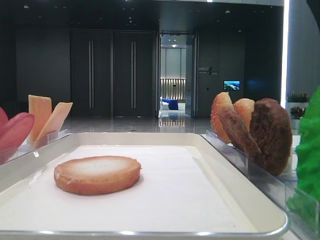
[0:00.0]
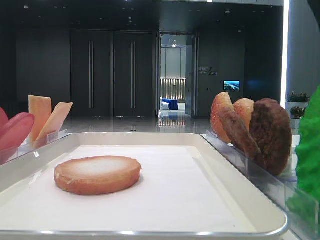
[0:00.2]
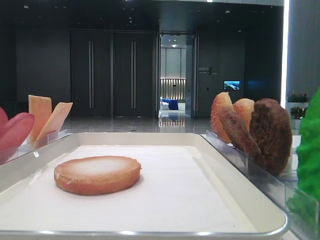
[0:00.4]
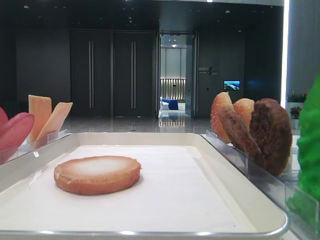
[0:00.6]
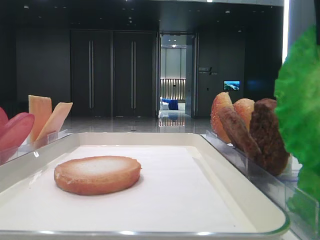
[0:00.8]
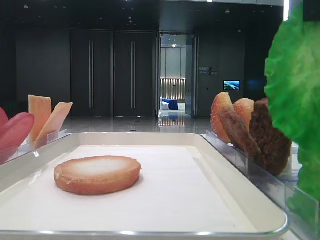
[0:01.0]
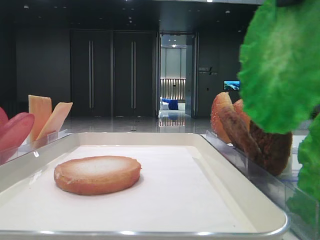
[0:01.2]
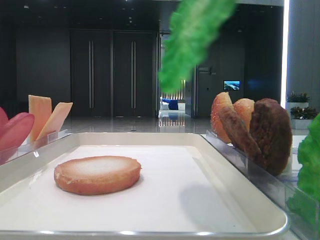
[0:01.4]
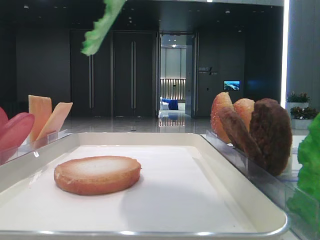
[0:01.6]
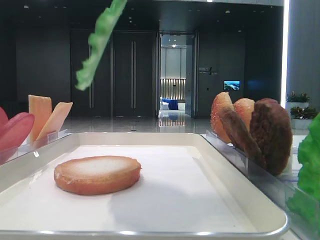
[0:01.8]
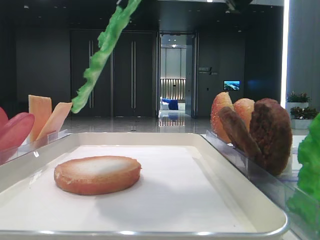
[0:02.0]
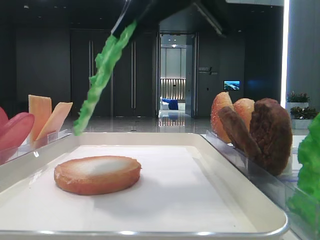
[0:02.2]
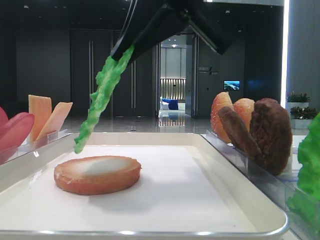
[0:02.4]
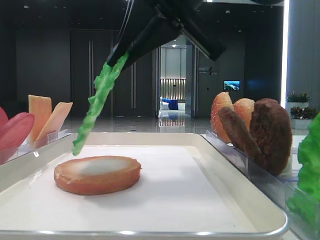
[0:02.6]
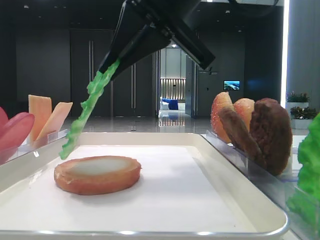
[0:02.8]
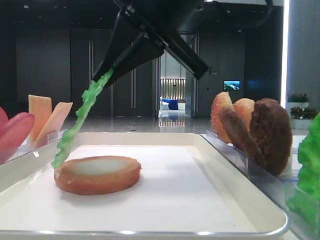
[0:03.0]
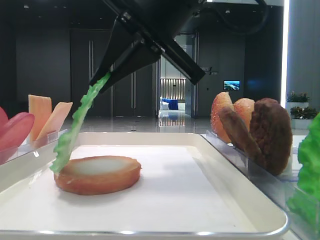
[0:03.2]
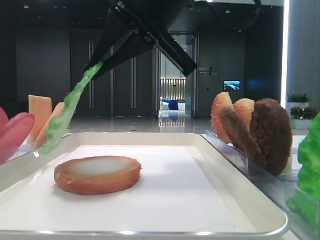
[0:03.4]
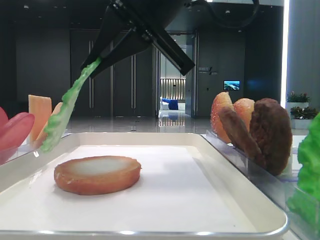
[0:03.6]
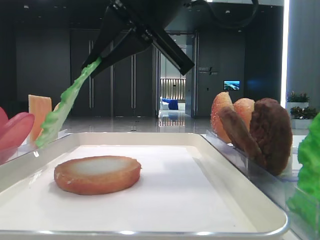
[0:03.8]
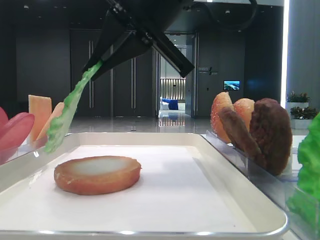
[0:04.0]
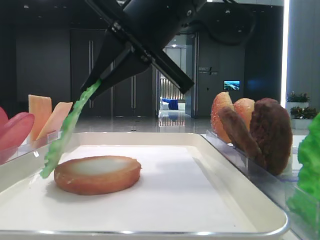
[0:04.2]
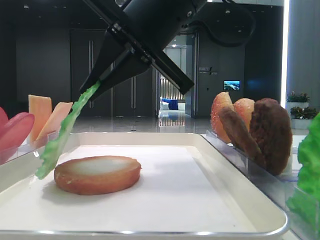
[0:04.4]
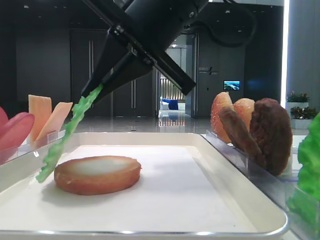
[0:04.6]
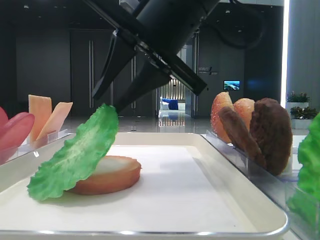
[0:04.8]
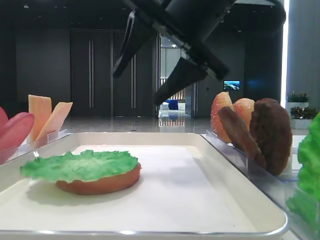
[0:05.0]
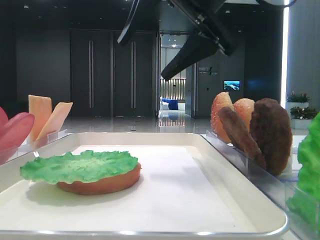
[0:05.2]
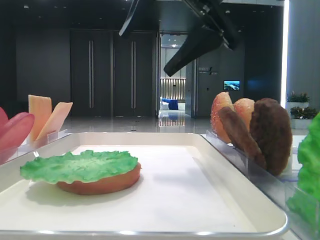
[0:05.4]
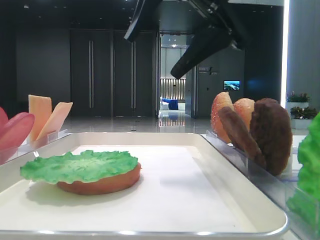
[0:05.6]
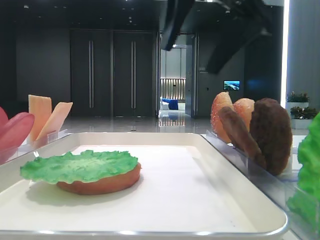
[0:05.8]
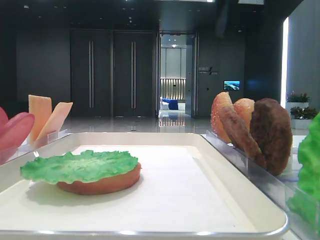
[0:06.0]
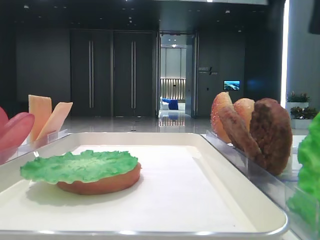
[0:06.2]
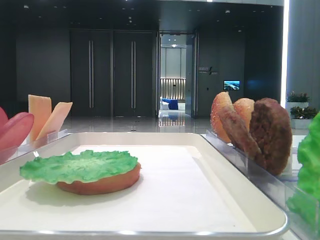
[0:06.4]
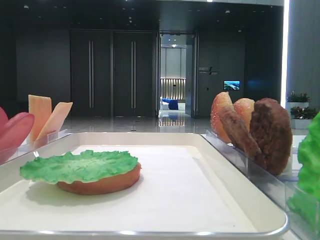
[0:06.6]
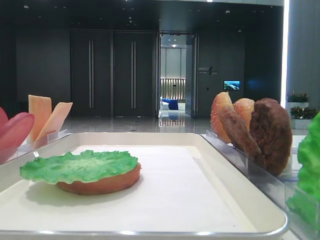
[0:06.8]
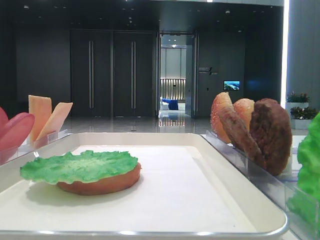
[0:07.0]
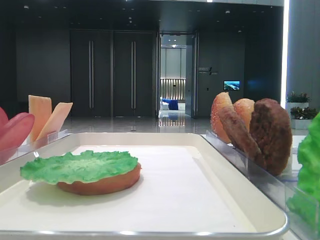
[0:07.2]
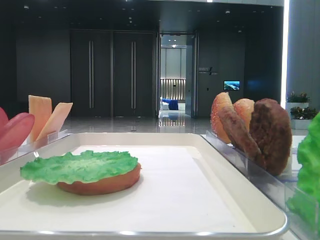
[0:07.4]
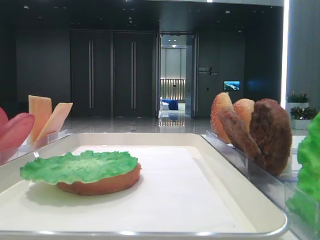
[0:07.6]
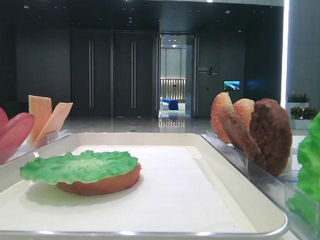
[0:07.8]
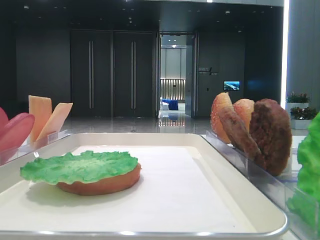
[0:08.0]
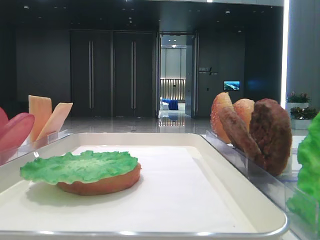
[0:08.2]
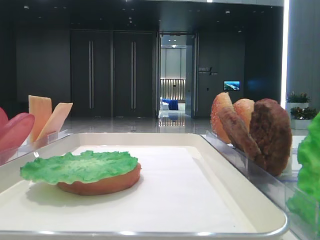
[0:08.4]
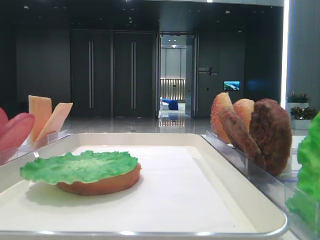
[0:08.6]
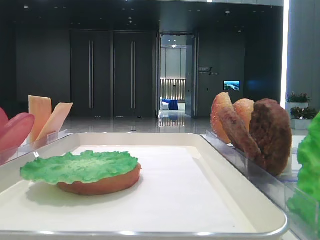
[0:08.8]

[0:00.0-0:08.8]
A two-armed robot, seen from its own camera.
Step, 0.6 to 4.8 s: Place the lettuce leaf on the bottom bread with the right hand.
0.0 to 1.4 s: The right gripper shifts roughly 10 cm upward, and closes up.
1.4 to 3.0 s: The right gripper is displaced downward, to the left and forward by some 15 cm.
3.0 to 4.4 s: The grippers make only small movements.
4.4 to 5.8 s: The right gripper is displaced to the right and upward by about 10 cm, and opens up.
5.8 to 7.4 s: The right gripper goes about 30 cm backward and to the right.

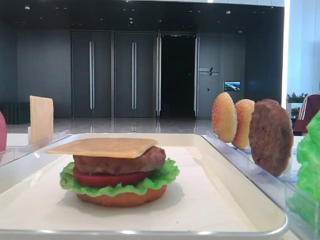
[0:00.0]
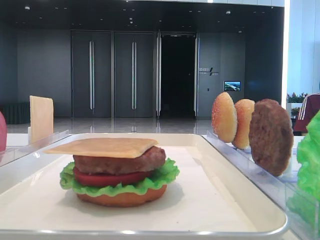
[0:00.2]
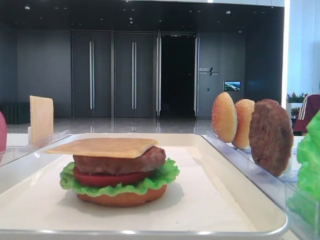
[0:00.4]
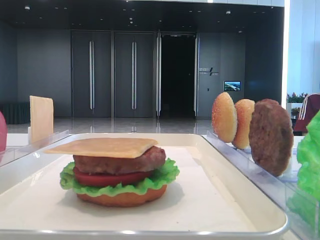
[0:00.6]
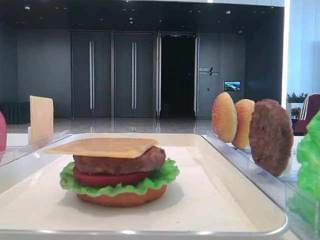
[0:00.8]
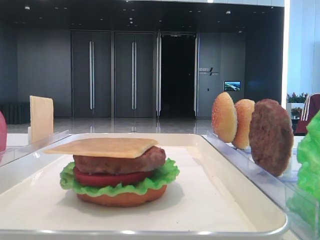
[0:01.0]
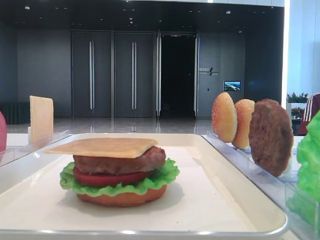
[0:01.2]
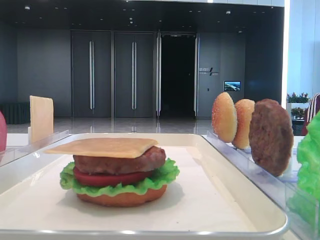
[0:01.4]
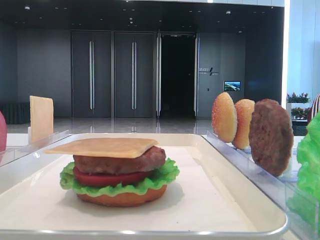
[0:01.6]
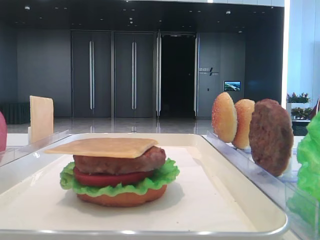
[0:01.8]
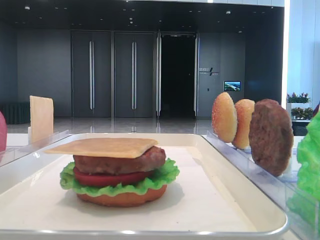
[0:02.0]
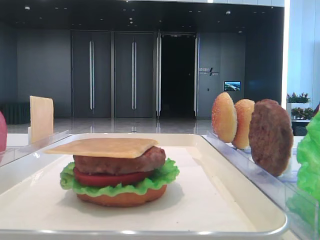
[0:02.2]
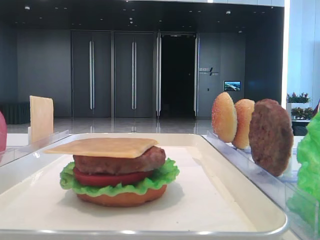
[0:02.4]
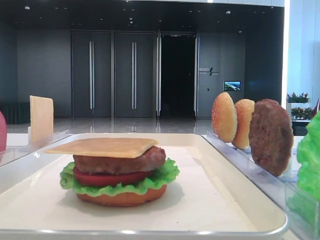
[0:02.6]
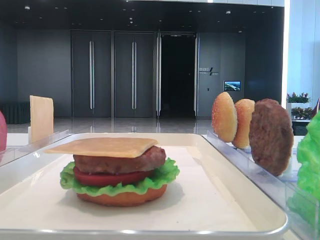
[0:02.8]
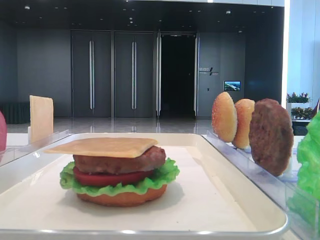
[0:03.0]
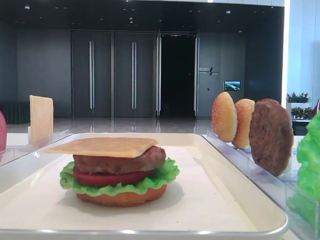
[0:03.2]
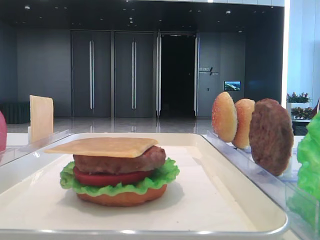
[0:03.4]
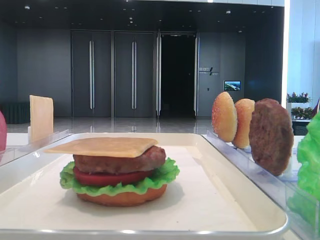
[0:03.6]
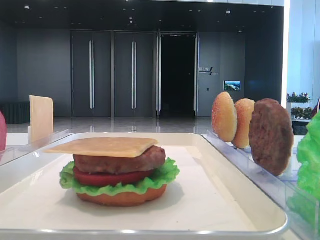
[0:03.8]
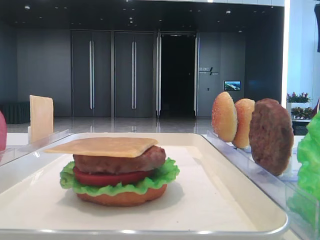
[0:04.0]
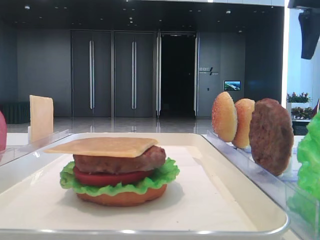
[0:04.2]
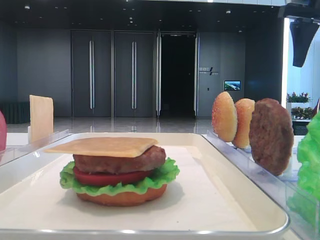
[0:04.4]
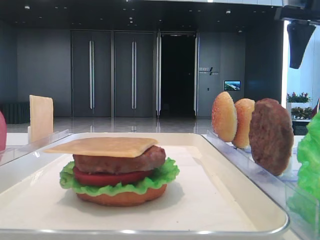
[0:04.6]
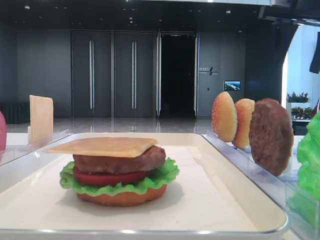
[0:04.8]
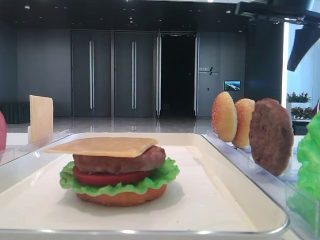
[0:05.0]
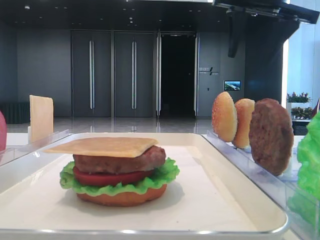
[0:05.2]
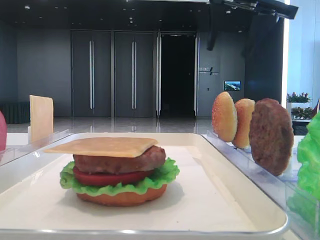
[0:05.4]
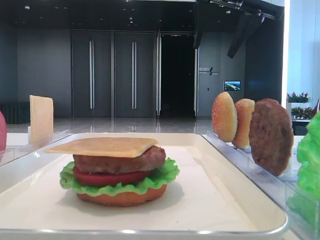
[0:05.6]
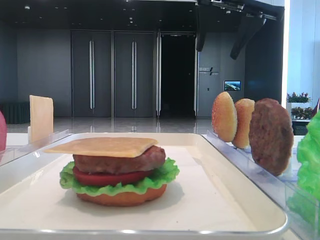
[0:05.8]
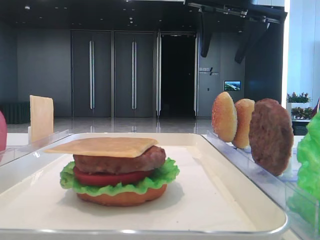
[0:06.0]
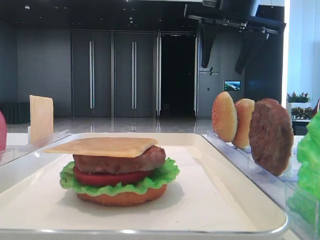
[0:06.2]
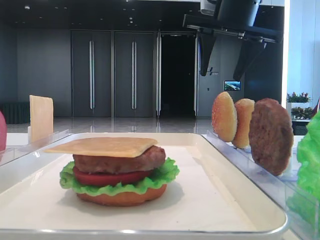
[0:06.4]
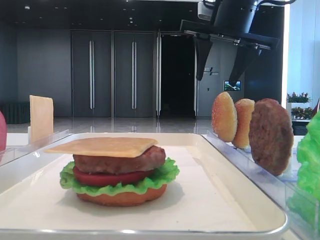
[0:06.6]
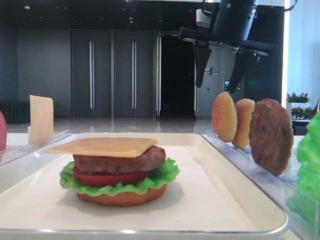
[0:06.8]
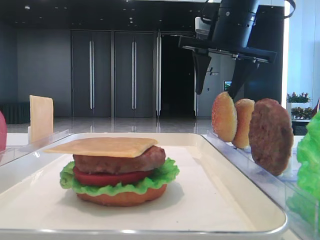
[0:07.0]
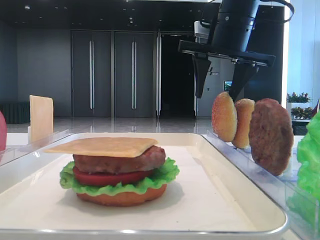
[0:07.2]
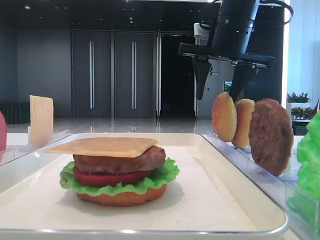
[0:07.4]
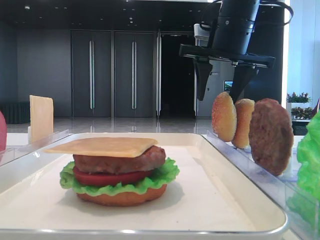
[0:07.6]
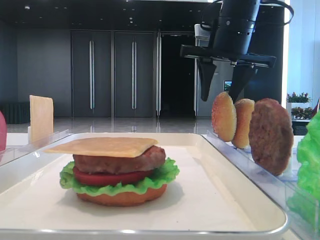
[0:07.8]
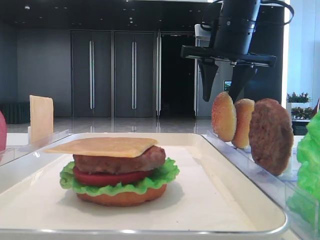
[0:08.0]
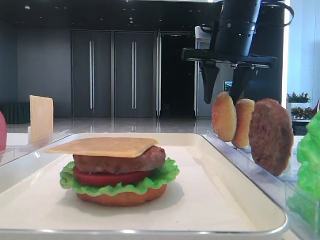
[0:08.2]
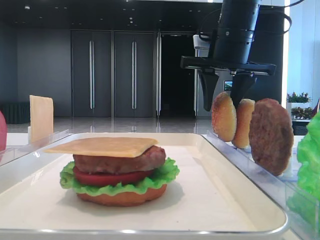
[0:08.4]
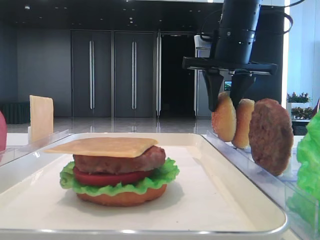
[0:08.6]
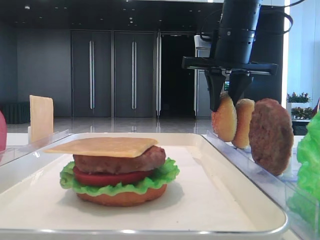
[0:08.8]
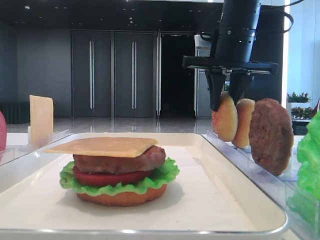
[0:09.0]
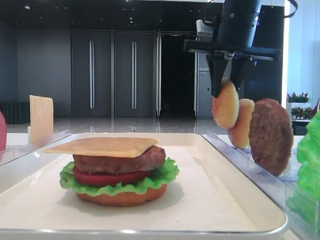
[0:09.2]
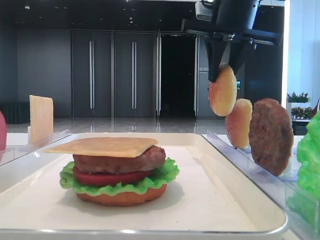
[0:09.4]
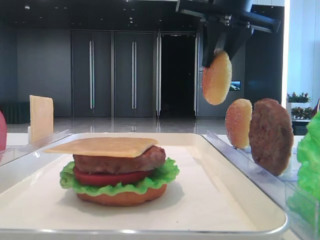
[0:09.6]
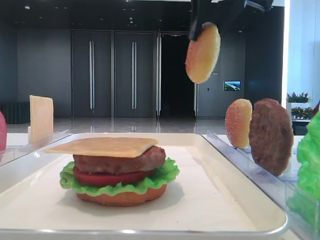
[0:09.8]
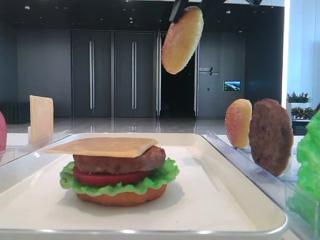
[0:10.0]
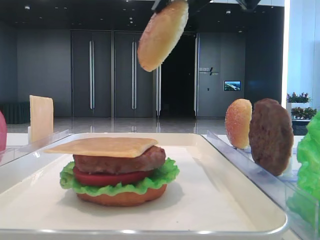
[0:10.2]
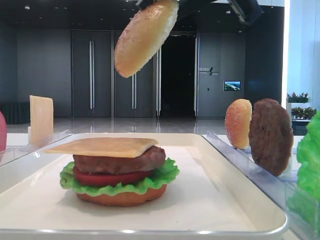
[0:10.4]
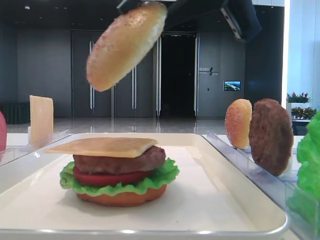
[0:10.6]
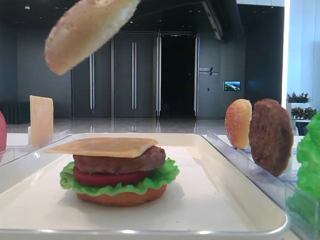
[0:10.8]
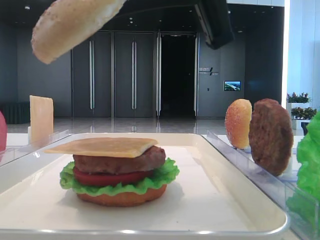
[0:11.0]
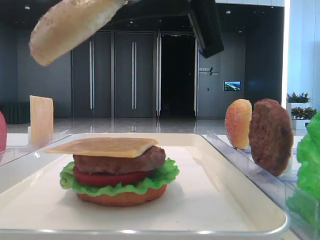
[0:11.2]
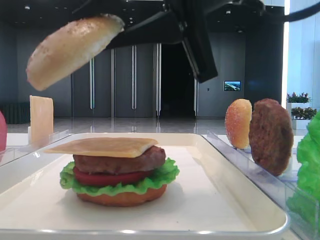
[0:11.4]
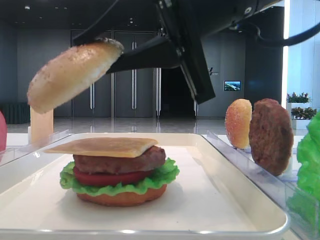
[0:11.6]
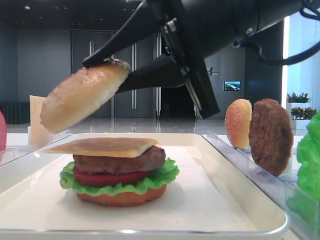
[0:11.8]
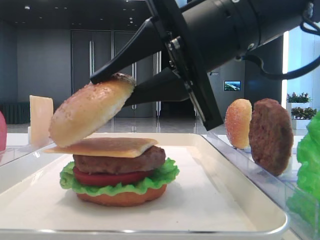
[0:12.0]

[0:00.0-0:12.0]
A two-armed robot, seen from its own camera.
Step, 0.0 to 8.8 s: Pick up the top bread slice with the right hand.
3.0 to 4.4 s: The right gripper shifts approximately 20 cm forward.
4.4 to 6.0 s: The right gripper travels to the left by some 15 cm.
6.0 to 7.6 s: The right gripper heads downward, covering some 5 cm.
7.6 to 9.0 s: The right gripper closes.
9.0 to 10.4 s: The right gripper heads backward, covering approximately 15 cm.
10.4 to 12.0 s: The right gripper moves downward, some 10 cm.

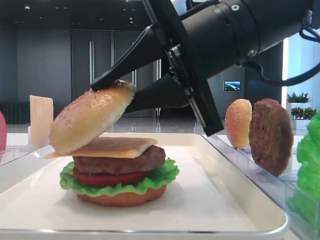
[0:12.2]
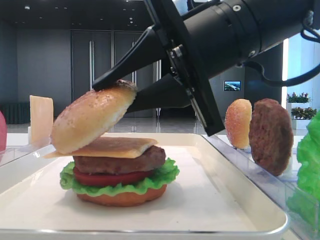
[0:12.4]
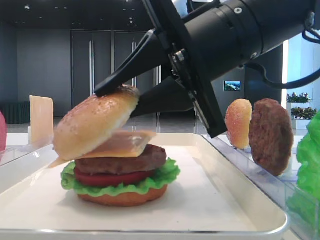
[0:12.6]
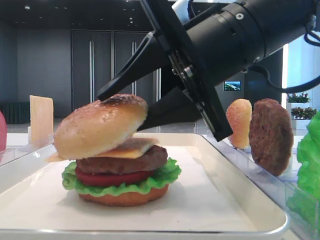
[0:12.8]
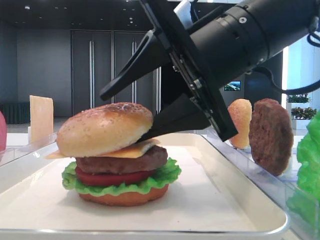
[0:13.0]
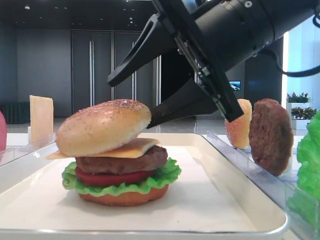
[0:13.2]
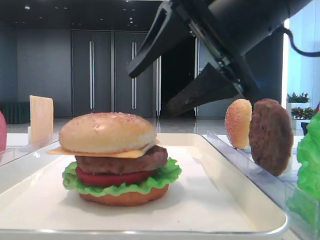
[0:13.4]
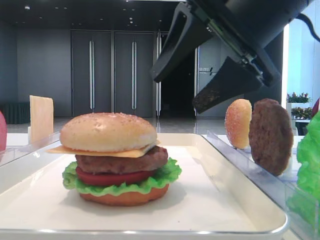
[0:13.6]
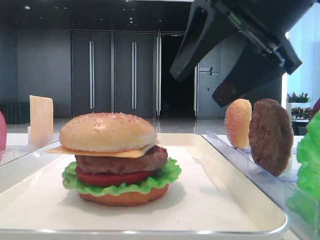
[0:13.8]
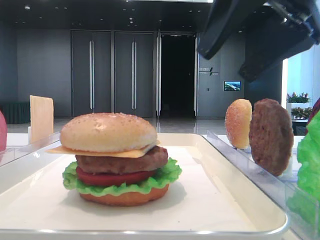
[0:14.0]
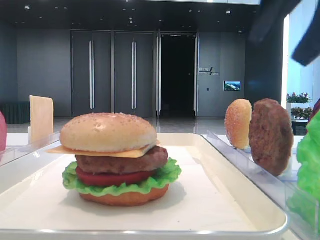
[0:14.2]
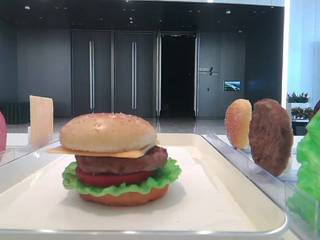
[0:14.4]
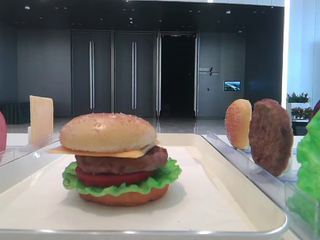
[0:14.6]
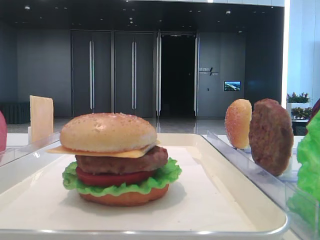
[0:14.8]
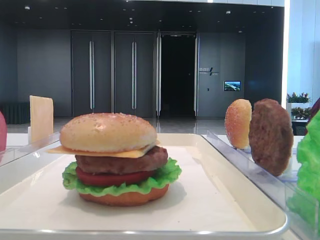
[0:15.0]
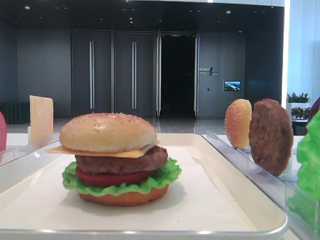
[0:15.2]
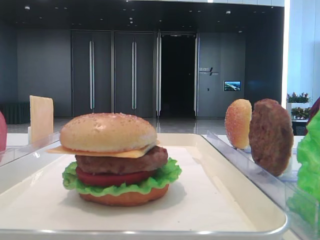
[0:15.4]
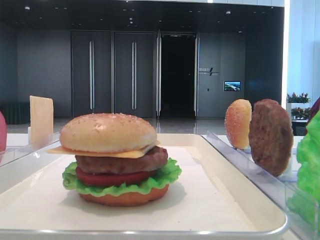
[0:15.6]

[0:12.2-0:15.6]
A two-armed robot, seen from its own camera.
12.2 to 13.8 s: The right gripper heads to the right, covering about 5 cm, and opens its fingers.
13.8 to 15.6 s: The right gripper heads to the right and backward, covering roughly 25 cm.
